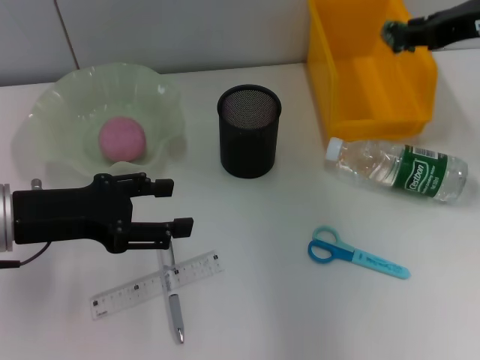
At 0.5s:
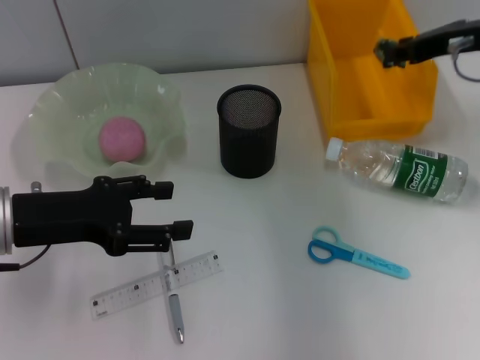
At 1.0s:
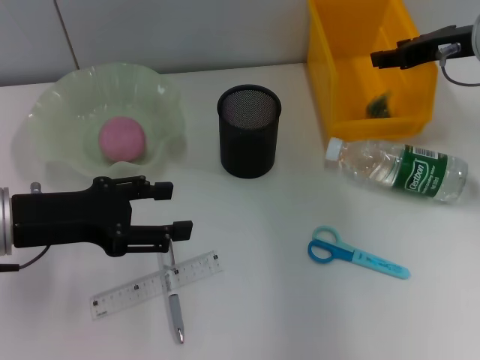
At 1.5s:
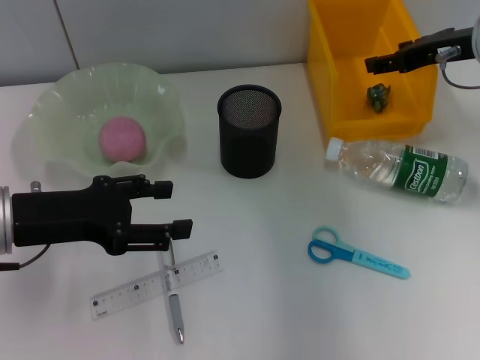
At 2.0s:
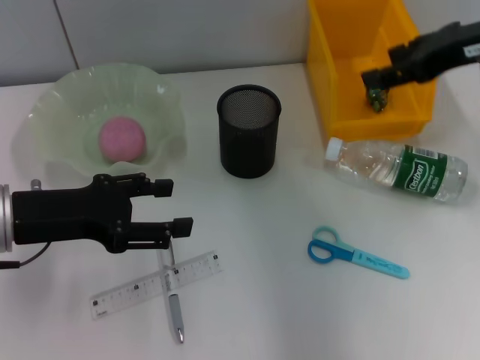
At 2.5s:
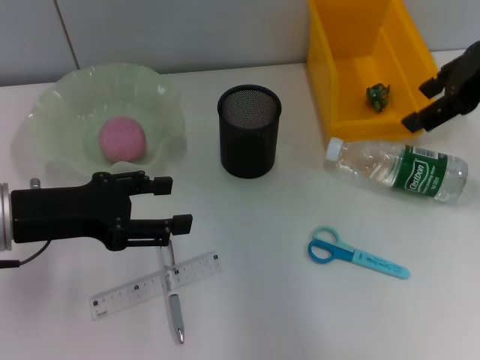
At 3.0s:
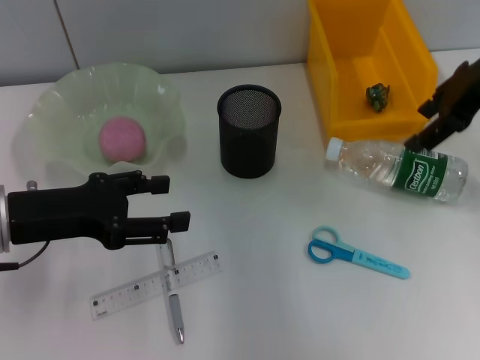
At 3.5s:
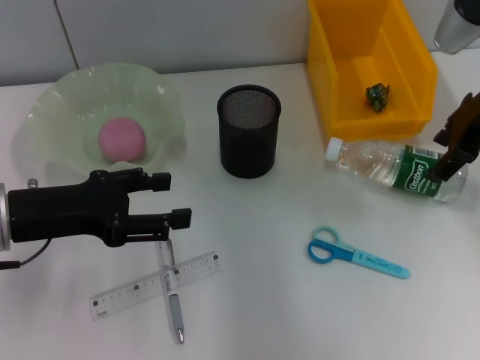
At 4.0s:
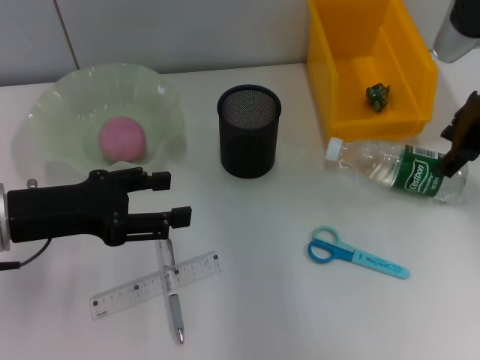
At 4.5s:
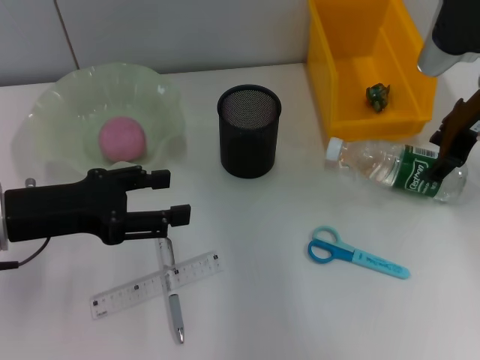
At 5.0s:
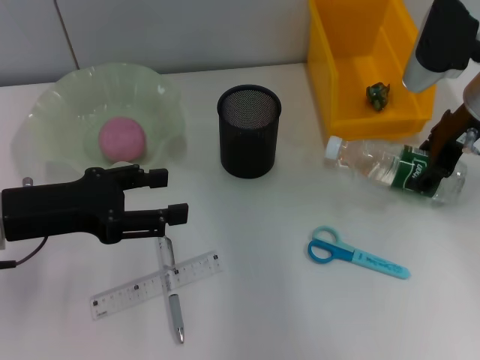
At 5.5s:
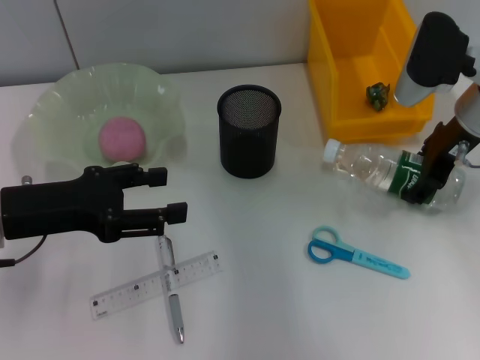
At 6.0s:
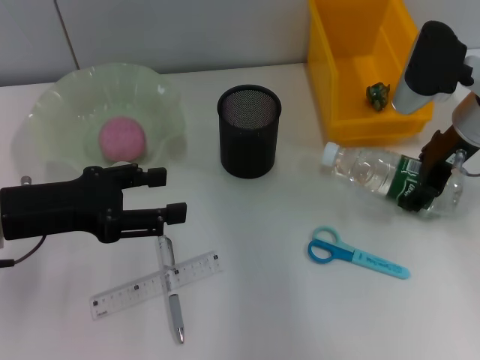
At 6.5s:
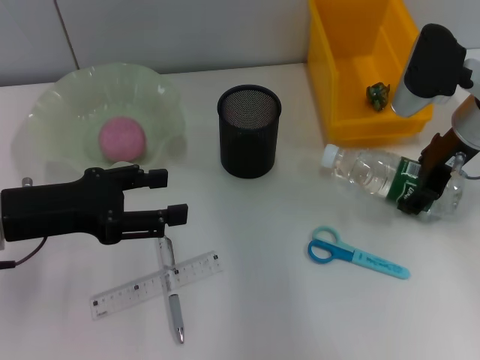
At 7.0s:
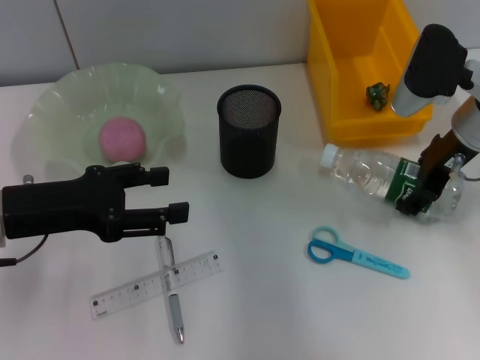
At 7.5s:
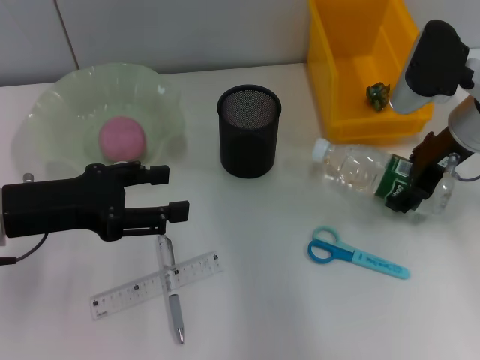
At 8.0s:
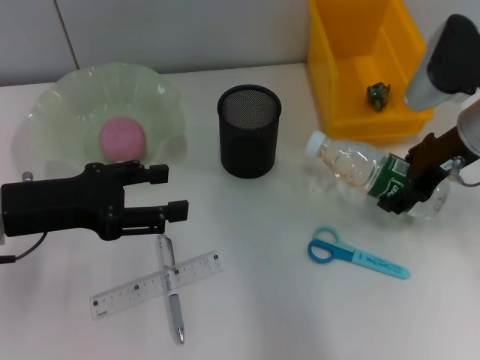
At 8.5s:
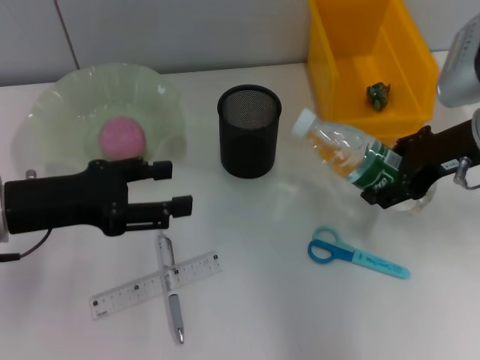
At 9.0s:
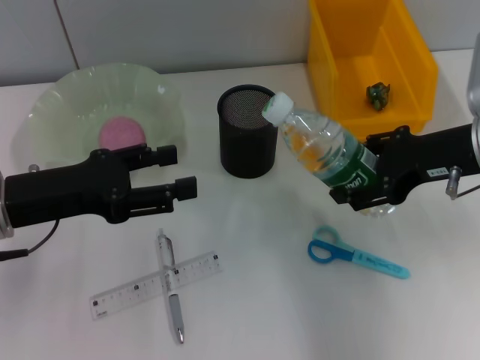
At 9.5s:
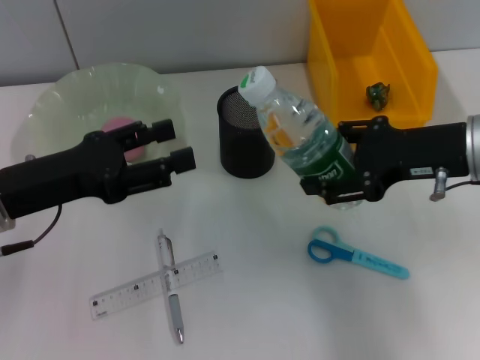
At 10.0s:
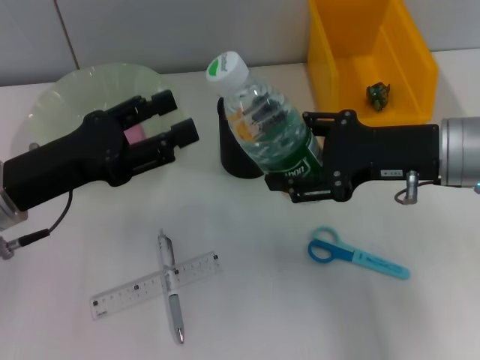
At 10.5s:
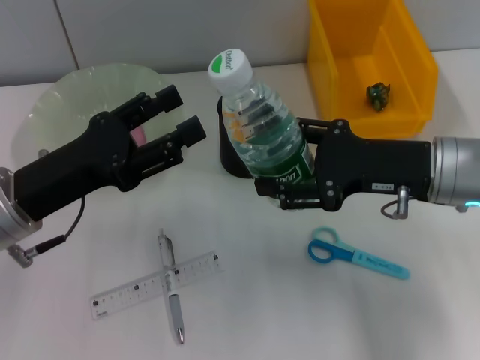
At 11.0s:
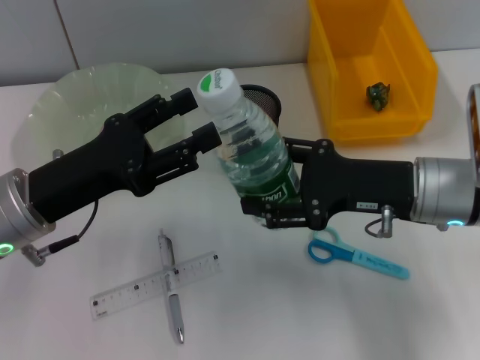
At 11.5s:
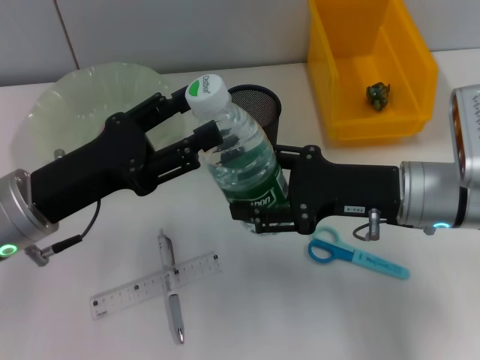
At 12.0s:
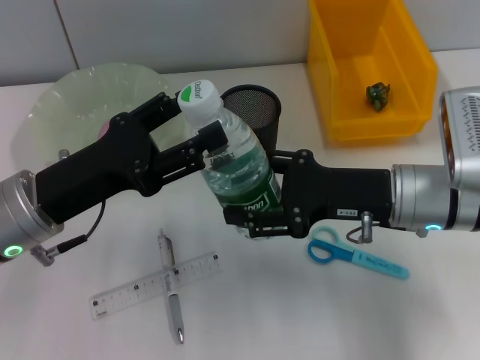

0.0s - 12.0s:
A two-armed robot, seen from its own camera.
Step, 0.0s - 2.0s: Place the plastic into the trash can with the right hand.
Step, 2.5s - 6.5s: Grab the water bottle with the right hand.
0.0s - 2.0s: The right gripper opens.
2.0s - 4.0s: The right gripper shifts roughly 5 cm downward.
4.0s - 6.0s: The right gripper heads downward, covering about 5 cm.
6.0s - 8.0s: The grippers make only small movements.
8.0s - 10.0s: The right gripper travels backward by roughly 5 cm.
10.0s - 12.0s: The right gripper heads downward, covering roughly 5 cm.

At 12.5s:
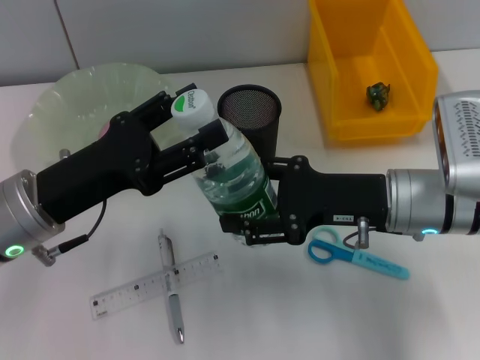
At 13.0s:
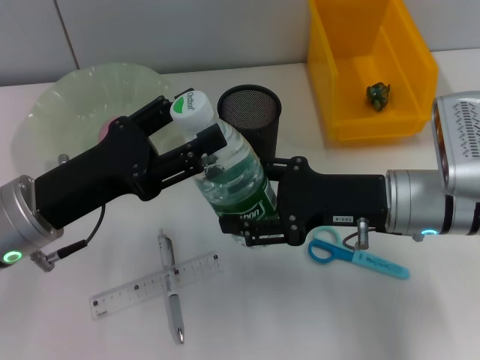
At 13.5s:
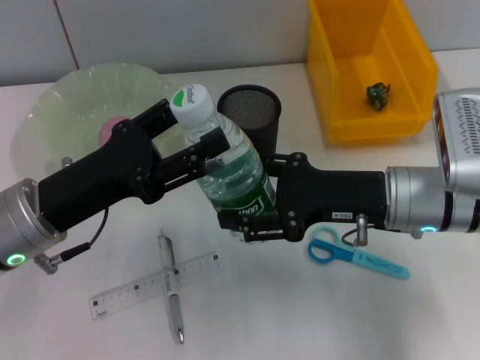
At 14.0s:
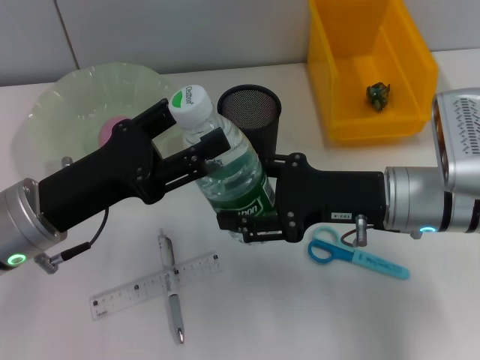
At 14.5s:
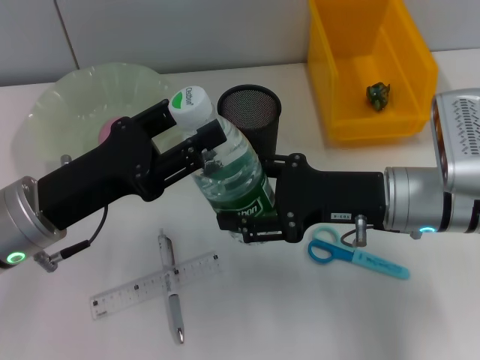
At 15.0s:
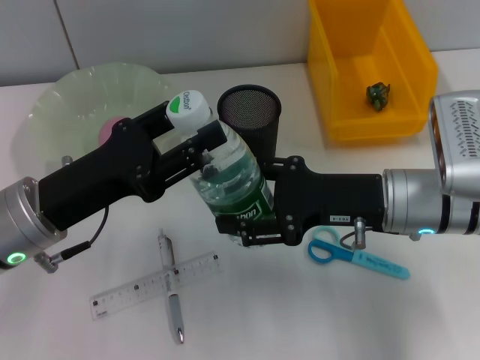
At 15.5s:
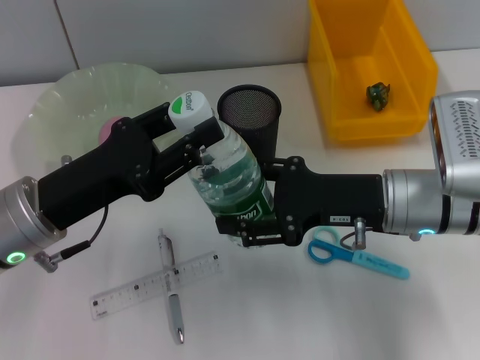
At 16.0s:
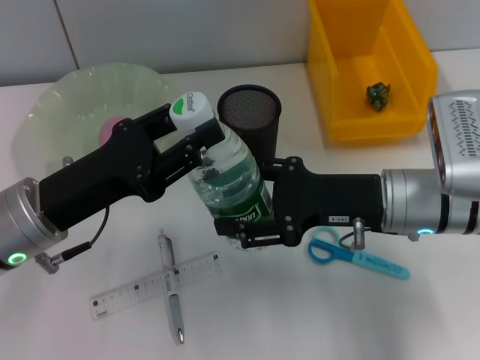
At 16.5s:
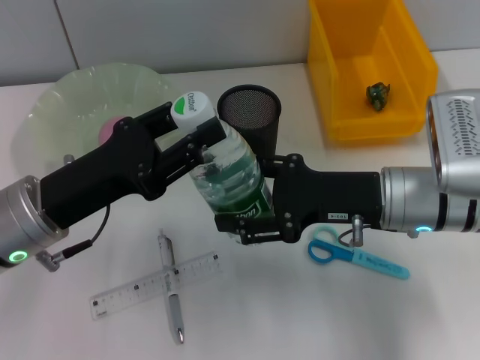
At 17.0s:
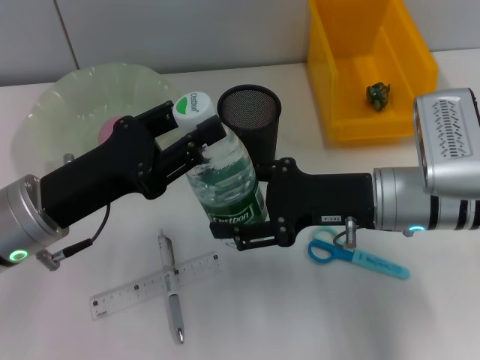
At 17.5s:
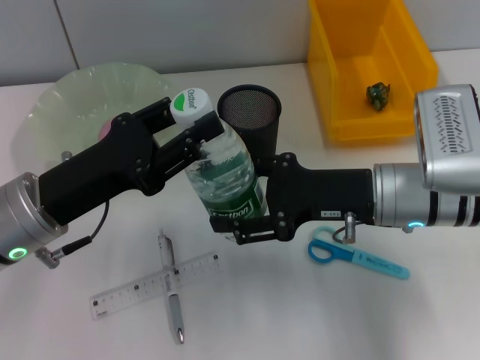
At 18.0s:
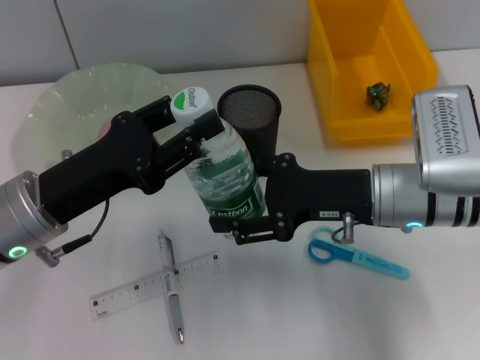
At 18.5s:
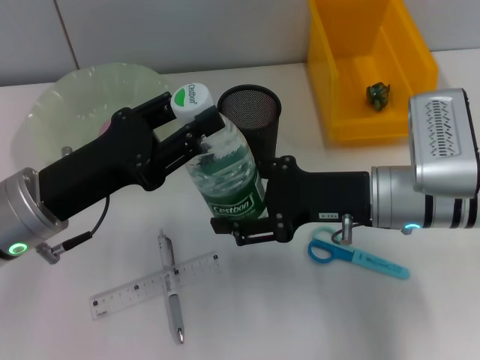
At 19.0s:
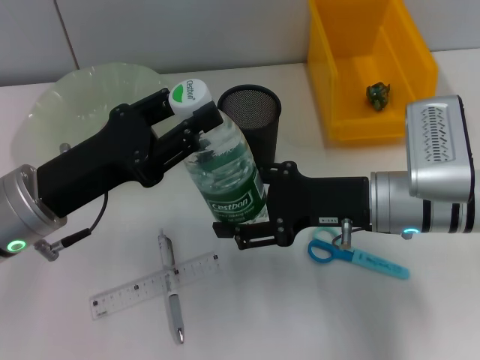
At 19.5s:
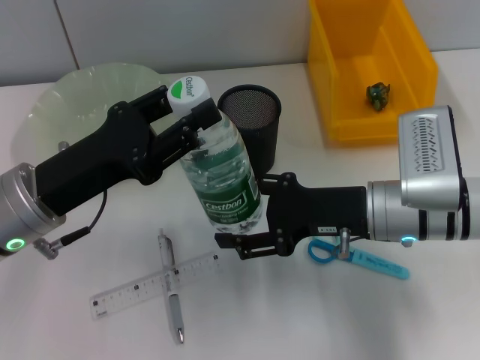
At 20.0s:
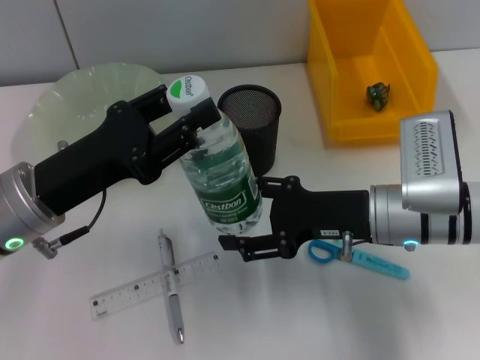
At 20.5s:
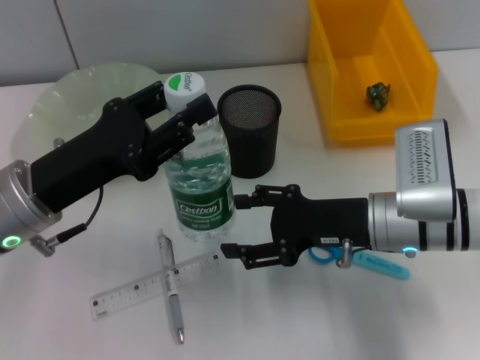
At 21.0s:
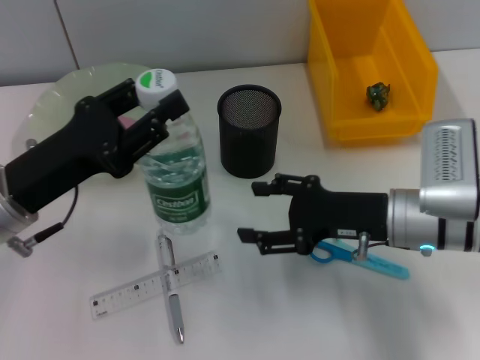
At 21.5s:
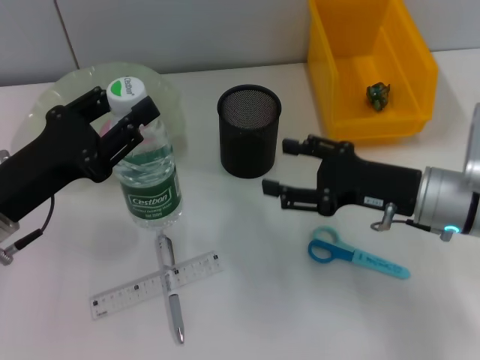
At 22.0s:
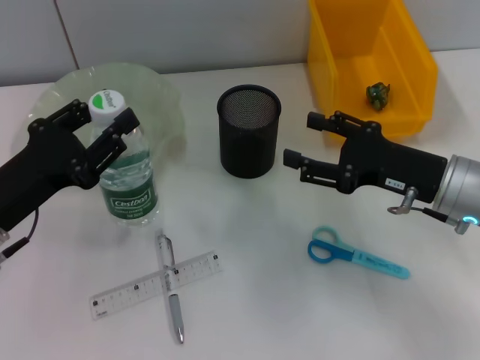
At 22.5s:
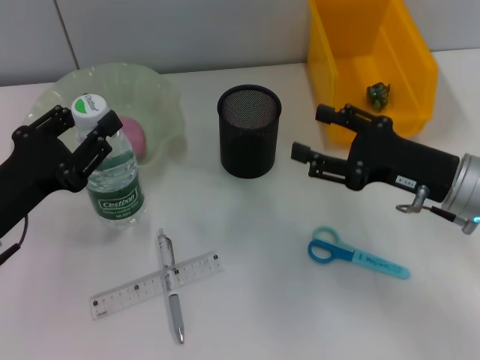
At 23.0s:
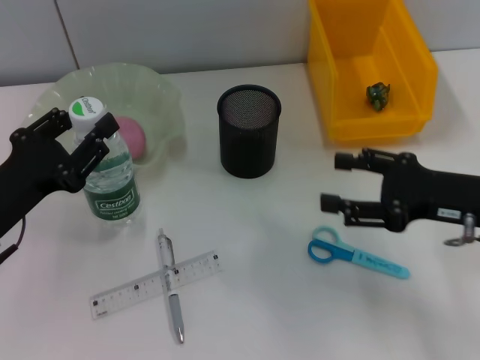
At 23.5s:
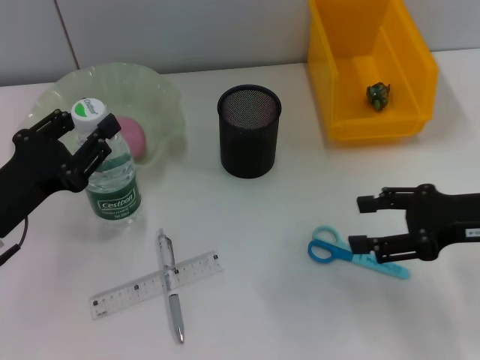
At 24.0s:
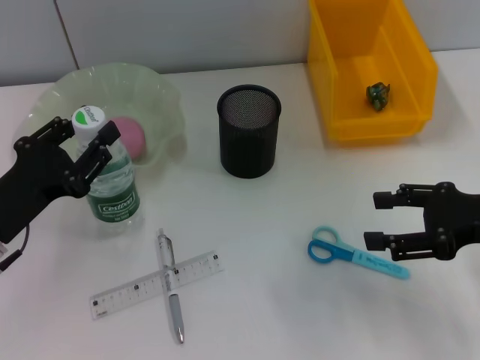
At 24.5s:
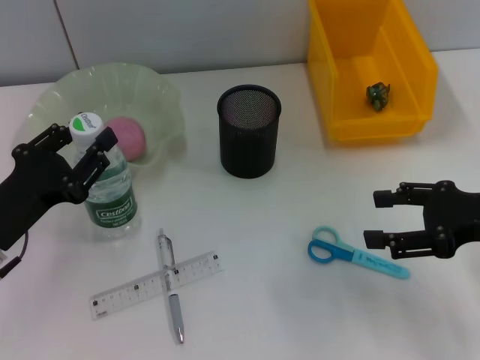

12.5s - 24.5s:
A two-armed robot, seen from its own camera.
Step, 12.5s - 19.5s: Pass the water bottle from the right hand to the left hand.
12.5s - 16.5s: The two grippers keep their place.
16.5s - 18.5s: Neither gripper changes place.
20.5s - 22.5s: The left gripper goes some 5 cm to the left. Meanwhile the right gripper travels to the right by approximately 5 cm.
22.5s - 24.5s: The right gripper heads to the right, covering about 5 cm.

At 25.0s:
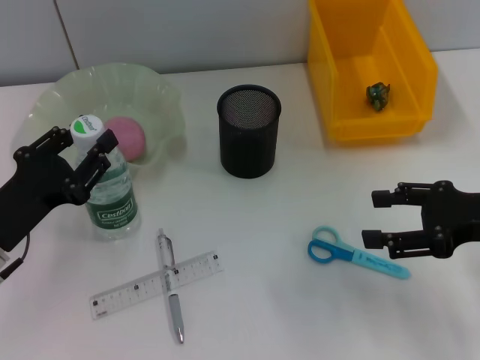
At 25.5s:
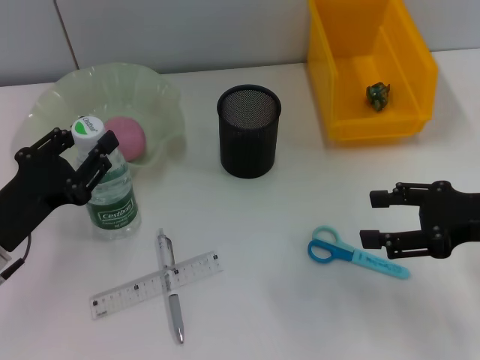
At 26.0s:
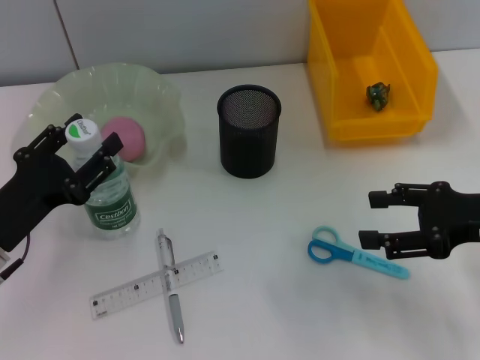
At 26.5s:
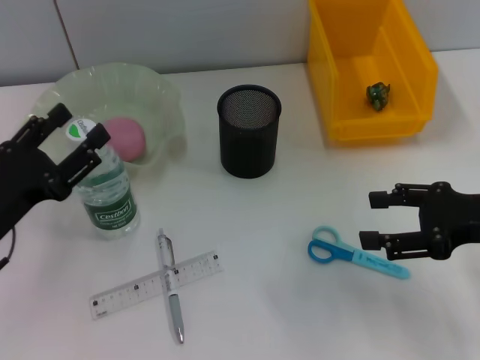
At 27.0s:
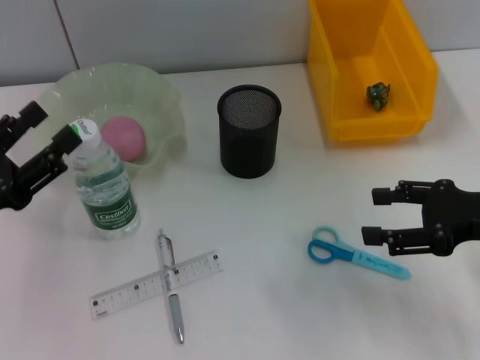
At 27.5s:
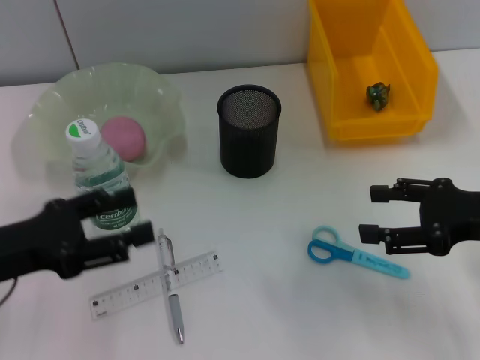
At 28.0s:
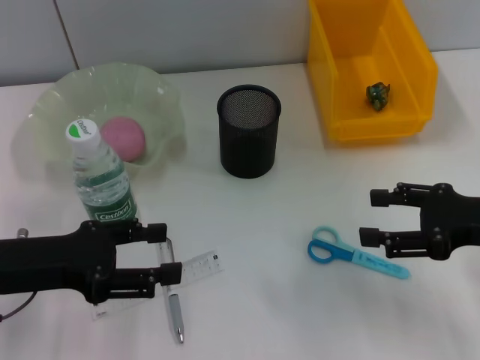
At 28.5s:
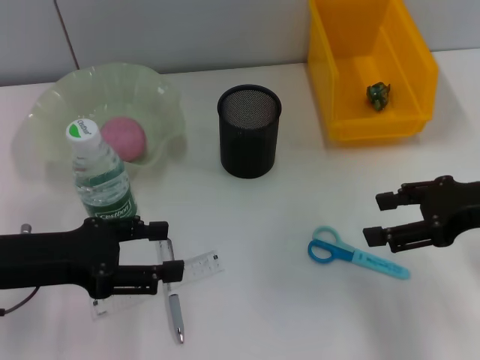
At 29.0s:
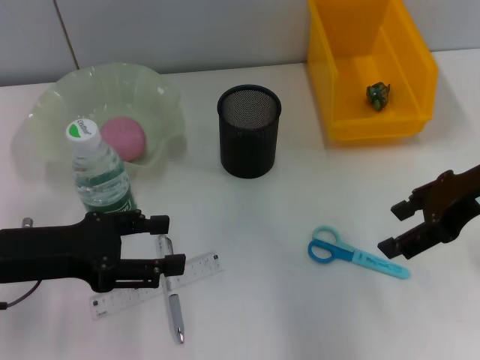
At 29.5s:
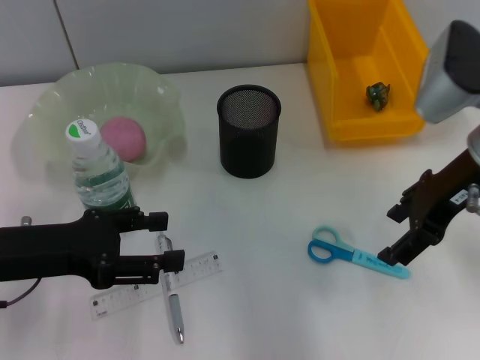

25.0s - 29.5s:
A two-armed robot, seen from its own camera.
25.0s - 27.0s: The left gripper changes place by approximately 5 cm, and opens up.
27.0s - 29.5s: The left gripper shifts by some 5 cm, while the right gripper is displaced to the left, upward and forward by some 10 cm.
